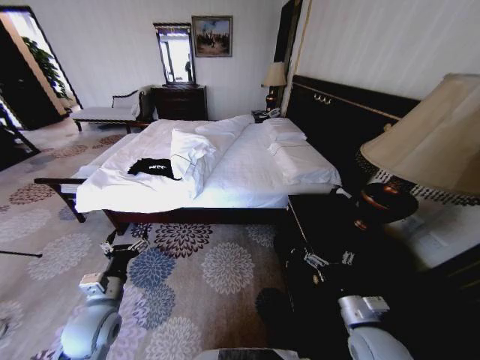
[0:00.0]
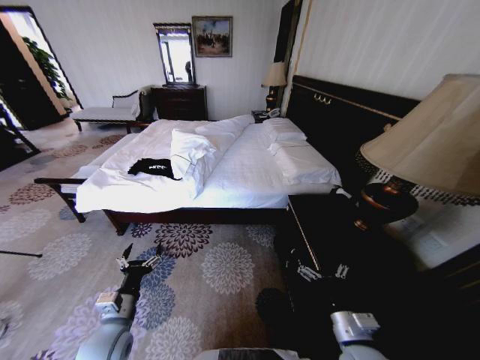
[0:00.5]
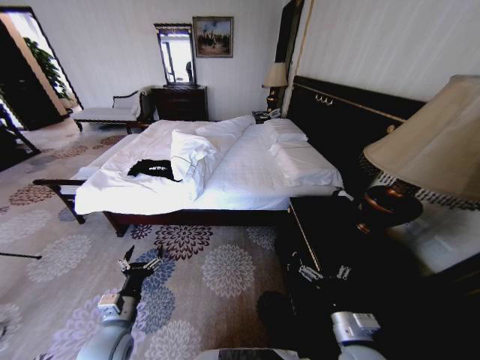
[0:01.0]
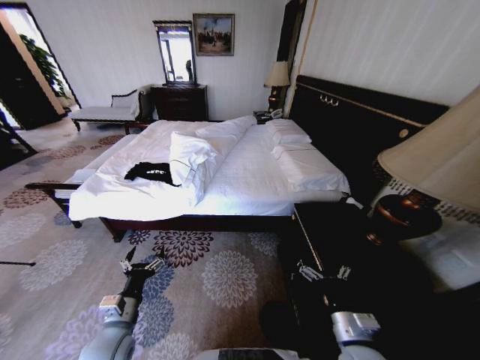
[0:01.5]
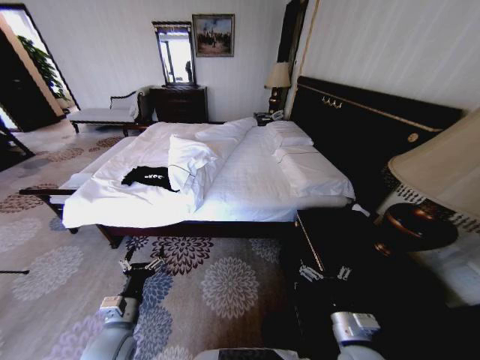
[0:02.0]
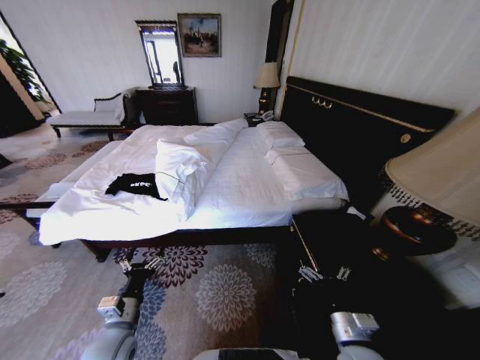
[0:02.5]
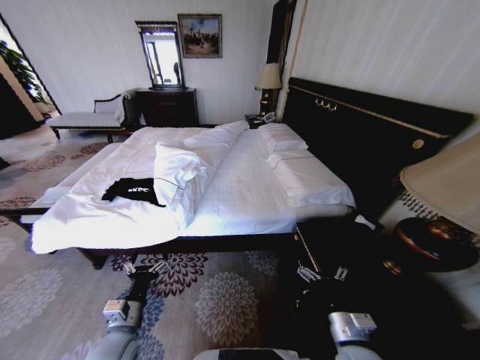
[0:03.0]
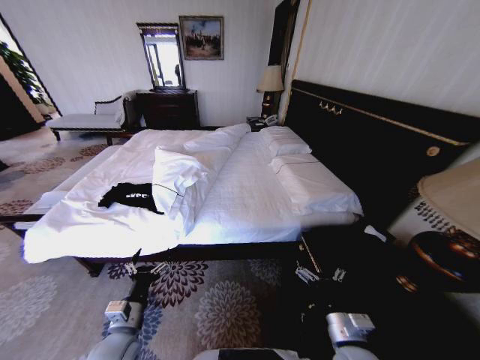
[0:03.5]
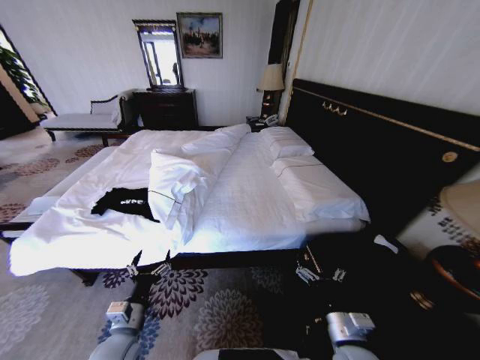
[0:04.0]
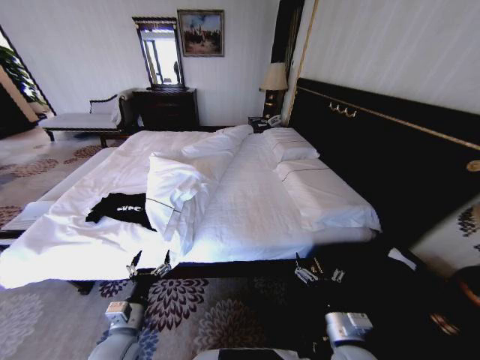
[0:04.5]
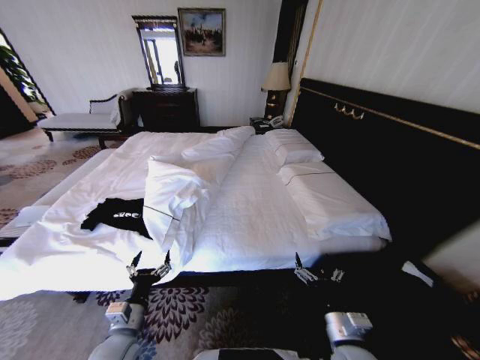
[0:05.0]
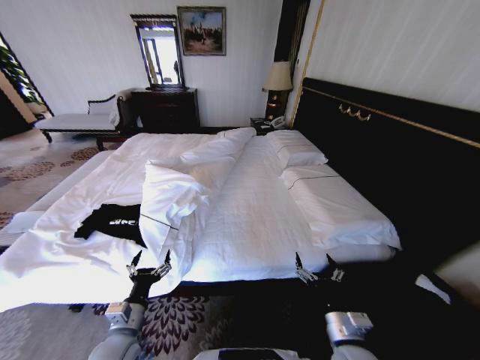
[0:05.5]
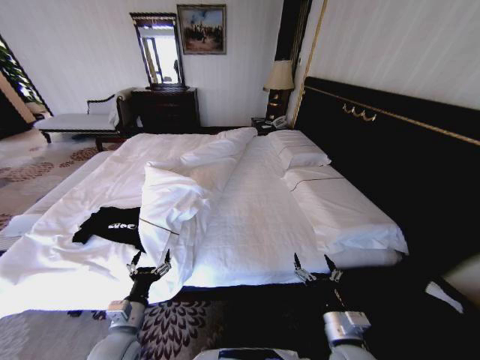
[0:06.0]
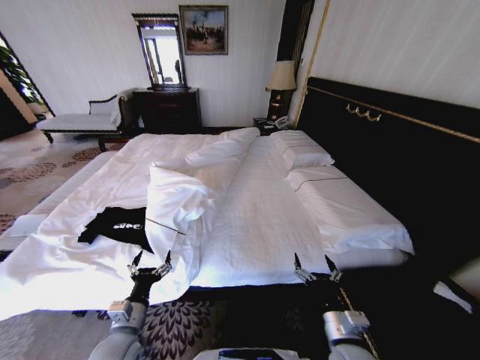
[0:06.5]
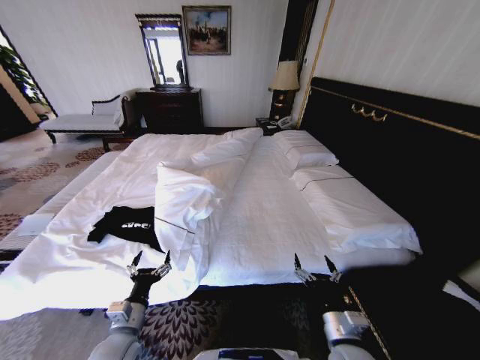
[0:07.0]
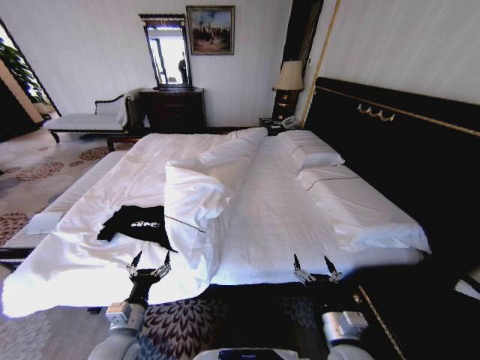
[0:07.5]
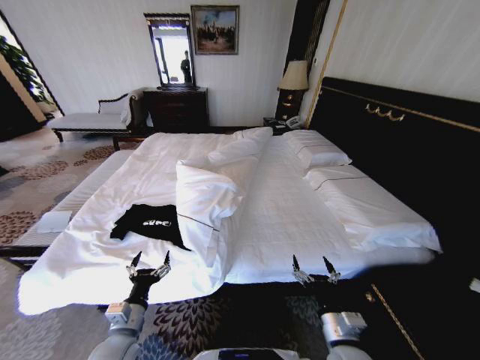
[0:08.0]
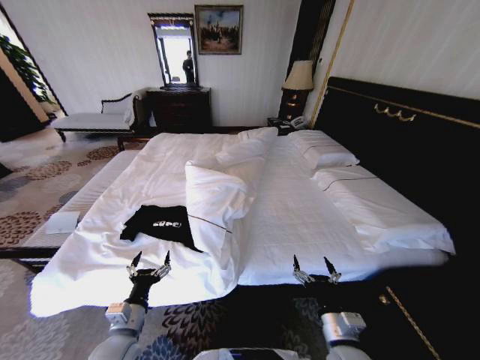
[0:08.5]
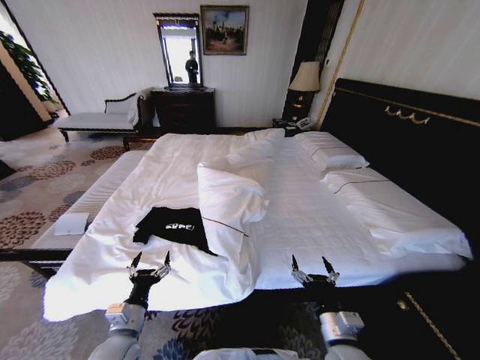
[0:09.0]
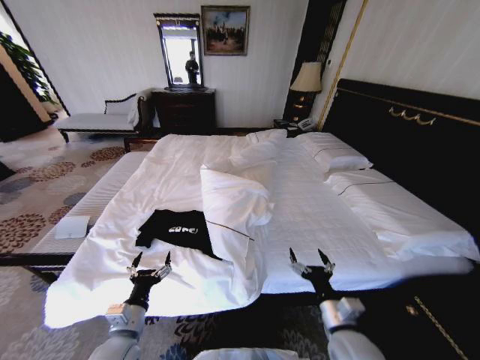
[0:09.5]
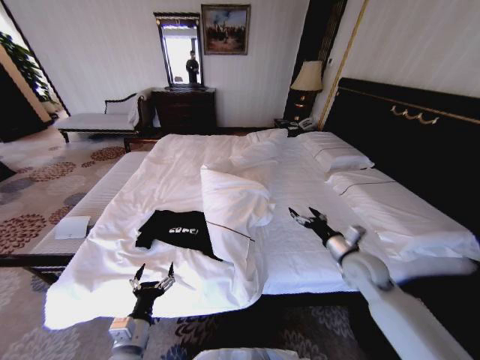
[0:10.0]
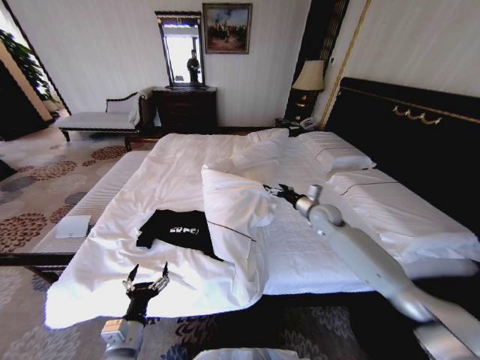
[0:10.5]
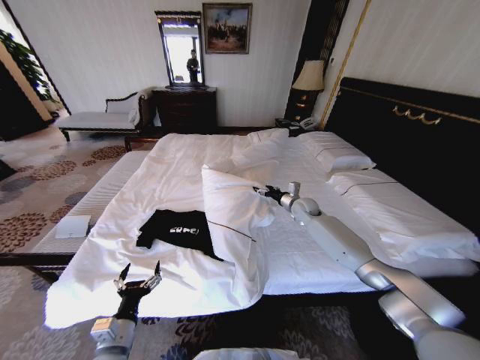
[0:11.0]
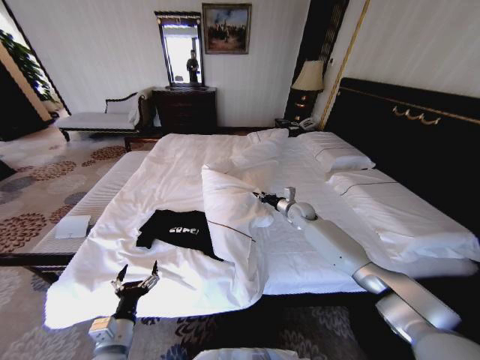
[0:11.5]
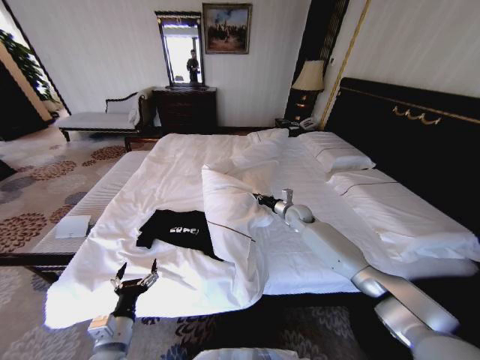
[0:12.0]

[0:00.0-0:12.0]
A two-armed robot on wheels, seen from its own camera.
Task of the whole recording: Fold the clothes on the bed.
0:08.0 to 0:10.0: The right gripper heads forward and to the right, covering approximately 20 cm.
0:10.0 to 0:12.0: The right gripper heads forward, covering roughly 25 cm, and closes up.

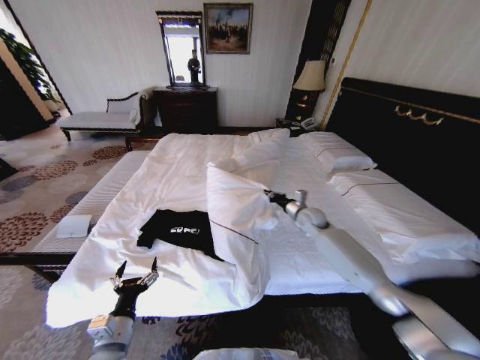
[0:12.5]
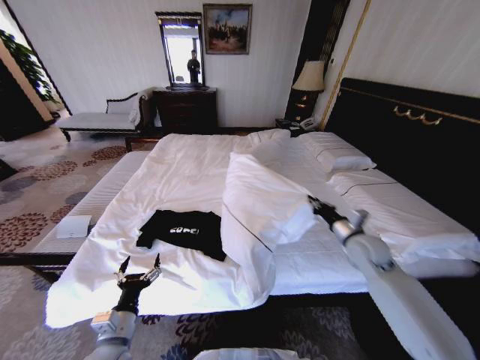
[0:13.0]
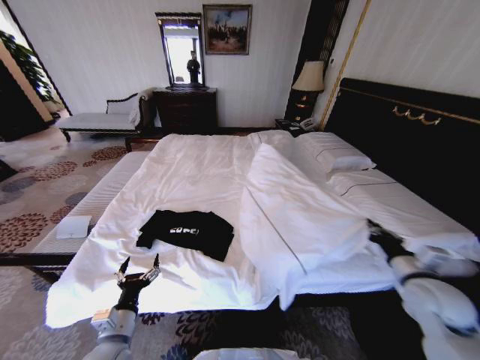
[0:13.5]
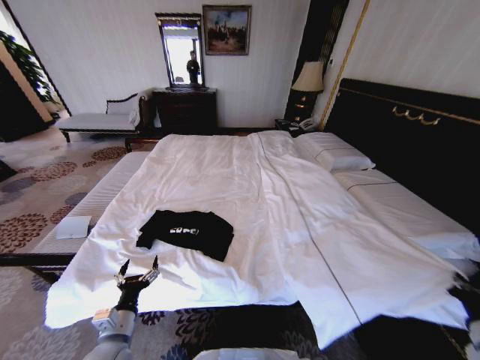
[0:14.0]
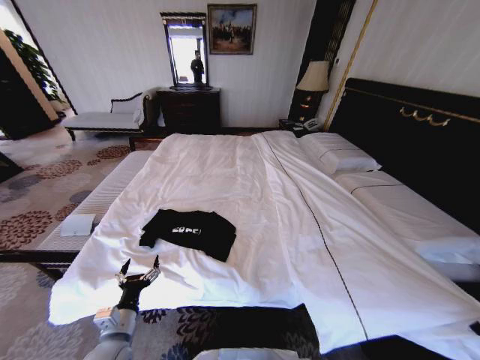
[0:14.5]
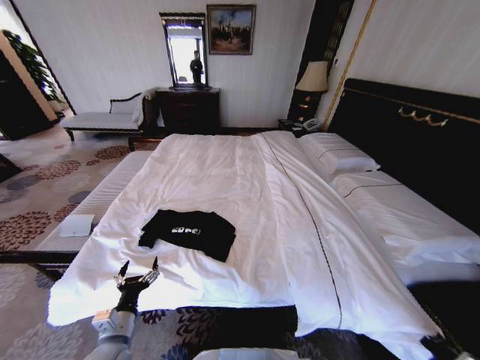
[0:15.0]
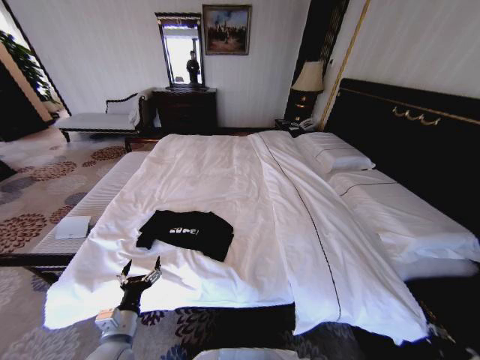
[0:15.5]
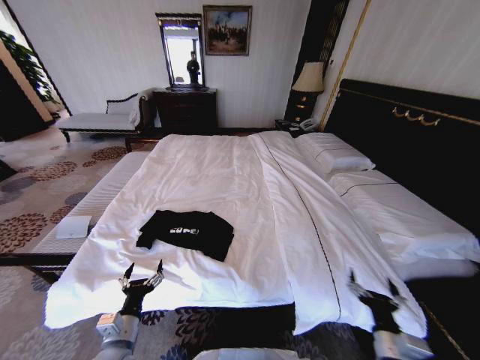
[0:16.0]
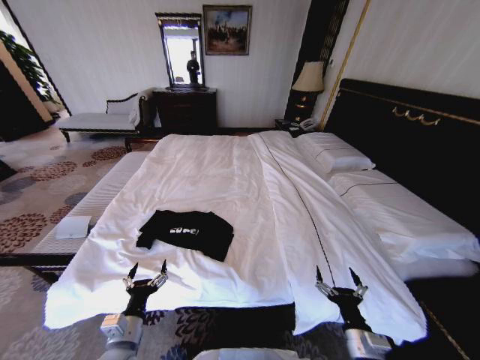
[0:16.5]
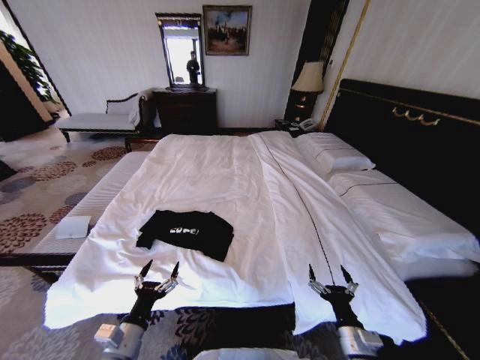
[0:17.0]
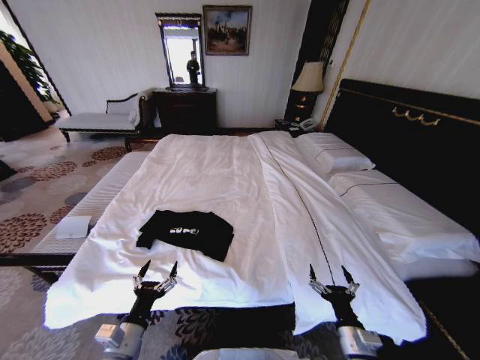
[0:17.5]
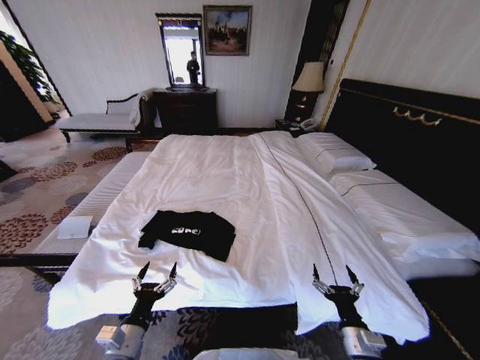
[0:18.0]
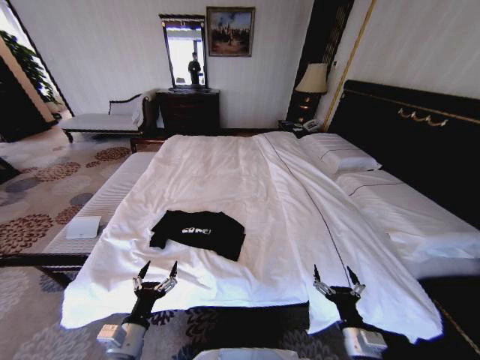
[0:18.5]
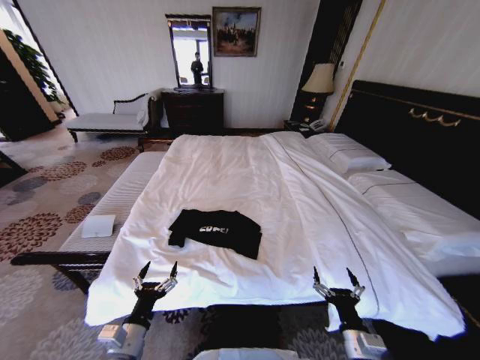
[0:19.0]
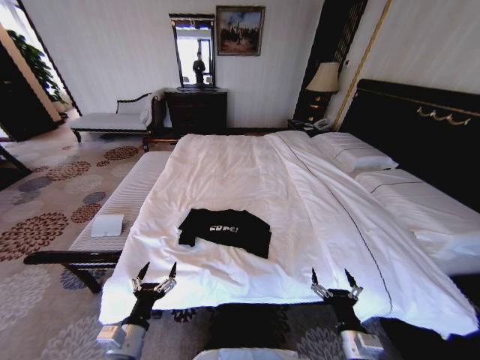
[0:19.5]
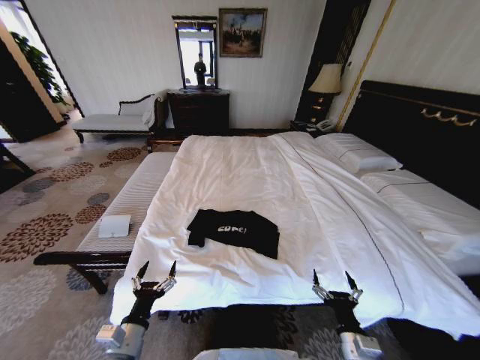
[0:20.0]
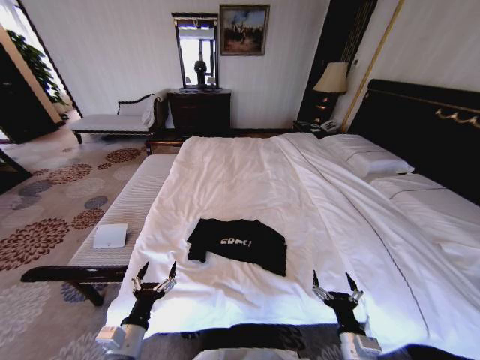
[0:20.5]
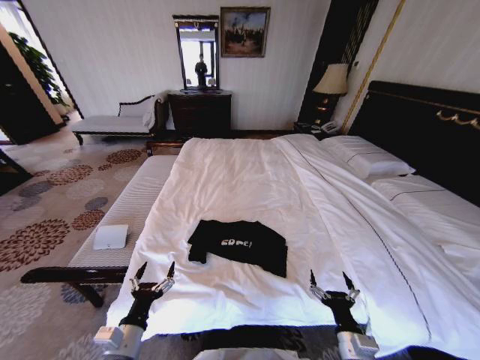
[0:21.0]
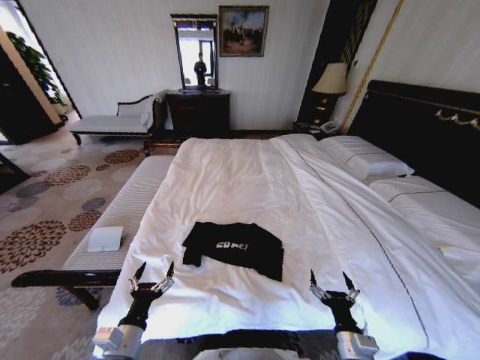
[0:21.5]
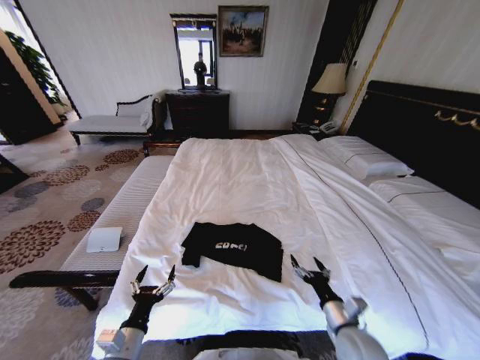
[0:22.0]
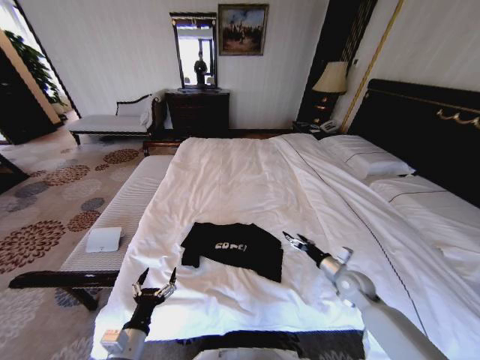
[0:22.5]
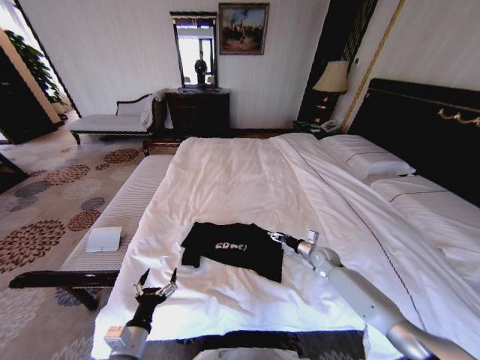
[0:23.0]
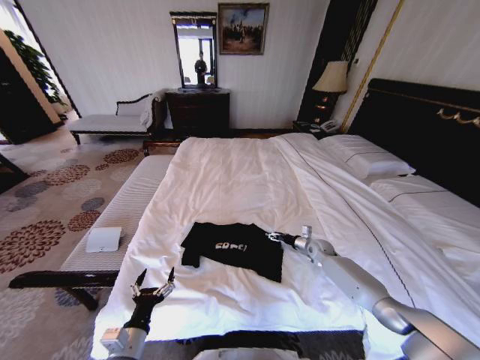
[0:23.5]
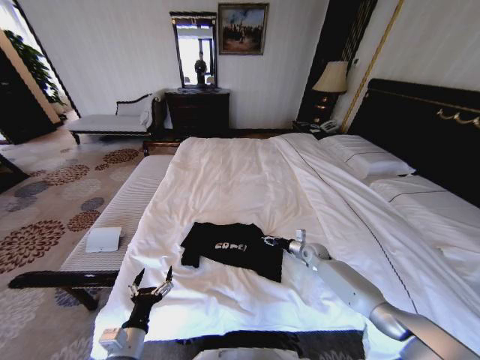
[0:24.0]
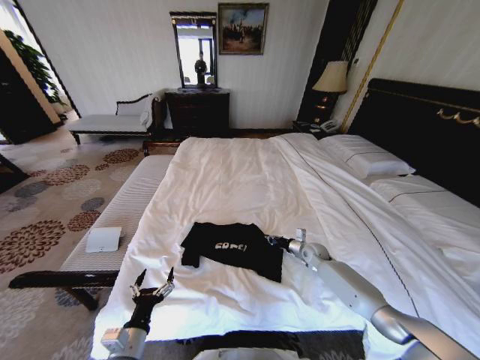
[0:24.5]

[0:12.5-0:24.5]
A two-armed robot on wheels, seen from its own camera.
Task of the whole recording: Fold the clothes on the bed.
0:12.5 to 0:14.5: The right gripper travels backward and to the right by about 50 cm.
0:14.5 to 0:16.5: The right gripper goes about 20 cm to the left and downward, and opens.
0:20.5 to 0:22.5: The right gripper shifts some 20 cm forward.
0:22.5 to 0:24.5: The right gripper moves forward and downward, roughly 15 cm, and closes up.

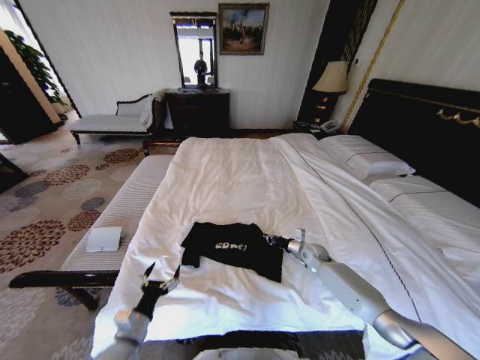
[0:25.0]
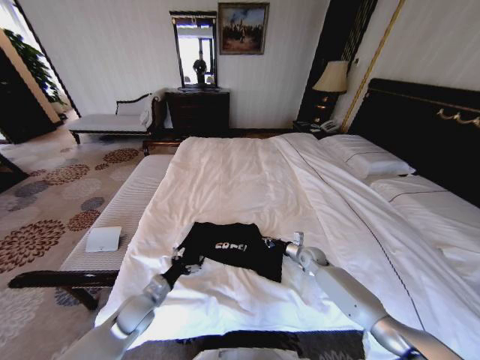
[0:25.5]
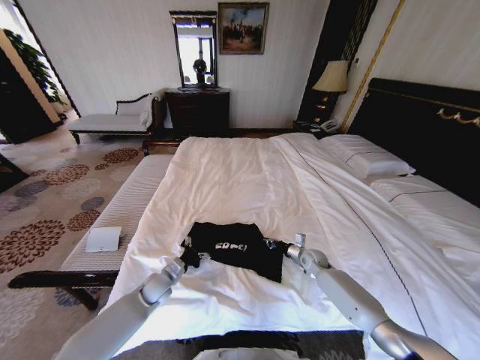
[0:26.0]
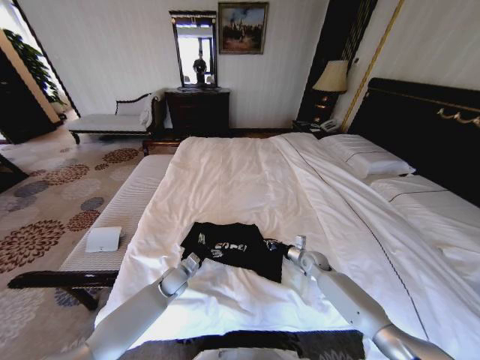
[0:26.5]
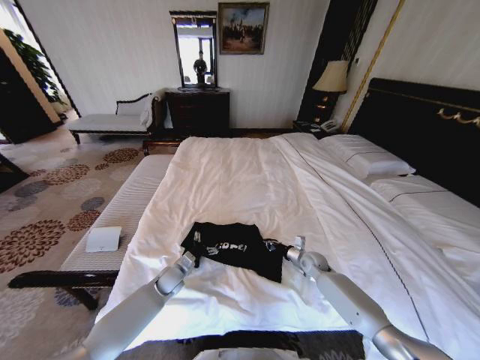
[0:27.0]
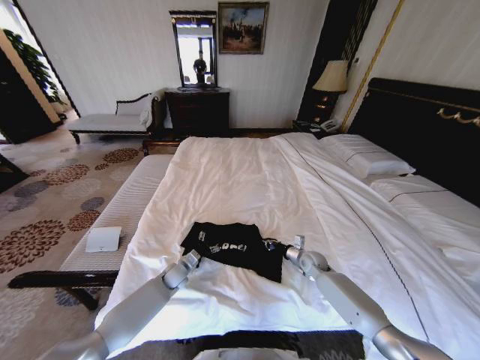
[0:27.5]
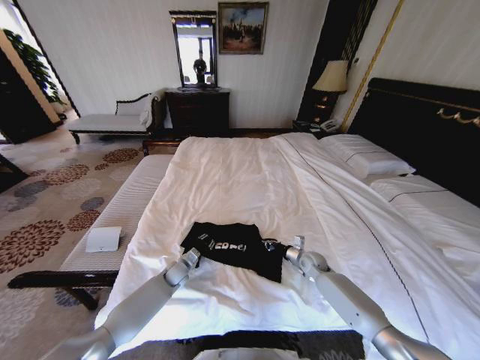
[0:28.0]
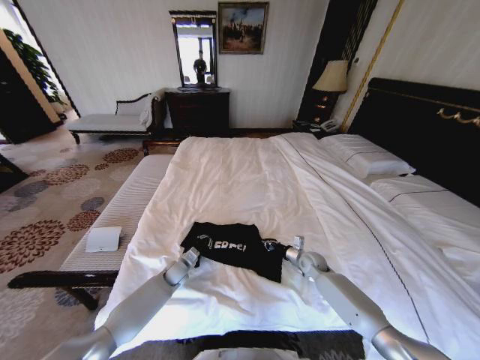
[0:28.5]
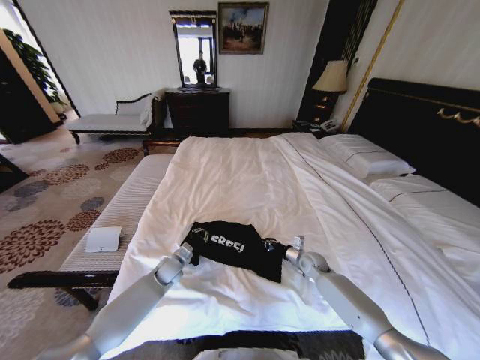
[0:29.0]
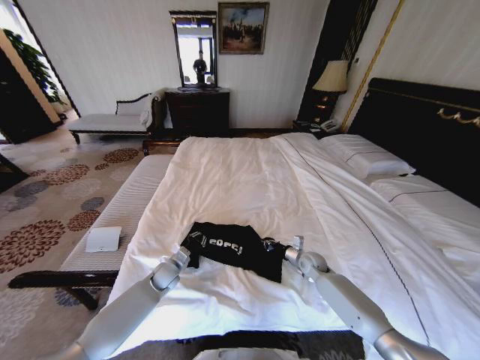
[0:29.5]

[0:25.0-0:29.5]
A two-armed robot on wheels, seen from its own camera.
Task of the whole recording: Fold the clothes on the bed.
0:25.0 to 0:27.0: The left gripper moves forward, roughly 20 cm.
0:27.0 to 0:29.5: The left gripper closes its fingers.
